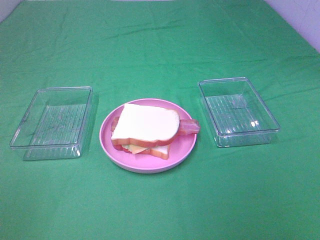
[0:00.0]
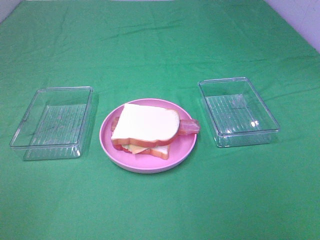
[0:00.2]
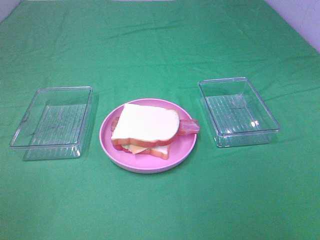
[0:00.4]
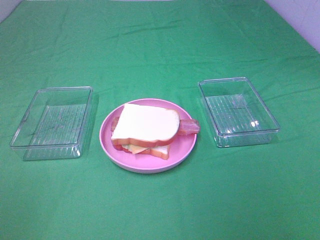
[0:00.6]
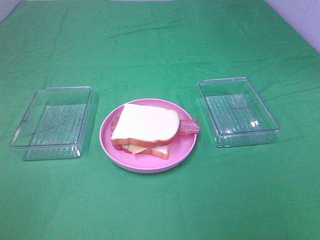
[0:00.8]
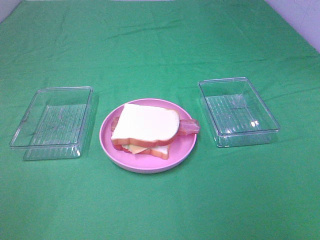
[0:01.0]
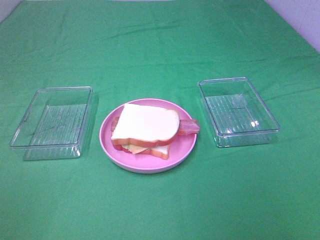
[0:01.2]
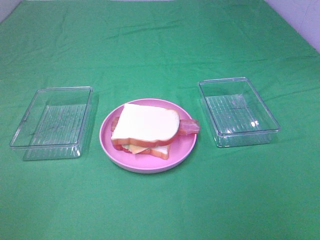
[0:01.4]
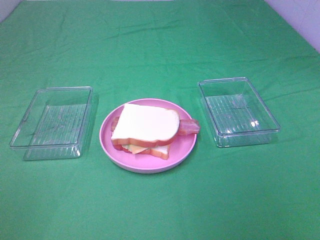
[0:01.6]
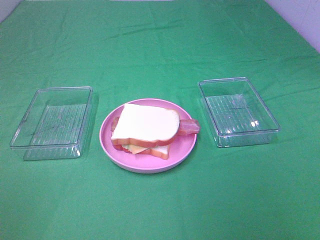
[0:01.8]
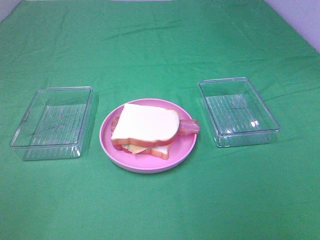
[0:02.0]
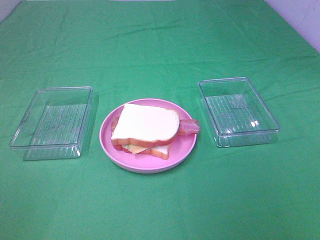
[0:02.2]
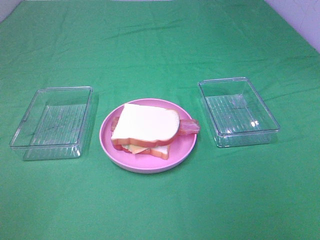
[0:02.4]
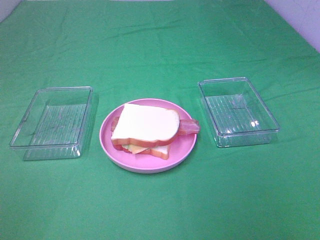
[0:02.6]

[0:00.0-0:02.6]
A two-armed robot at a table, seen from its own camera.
Task of the whole recording: Make sandwiches.
0:01.2 to 0:02.6: Neither gripper changes place.

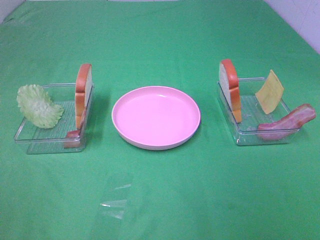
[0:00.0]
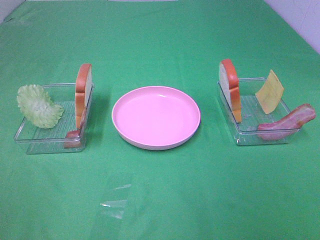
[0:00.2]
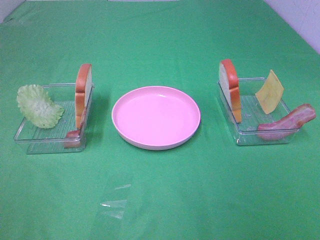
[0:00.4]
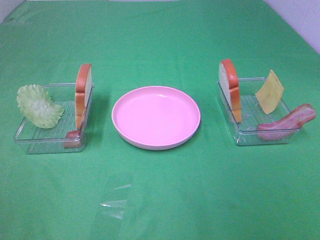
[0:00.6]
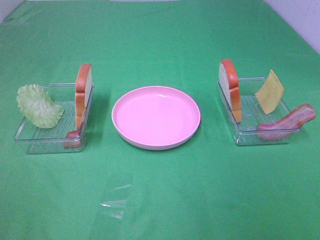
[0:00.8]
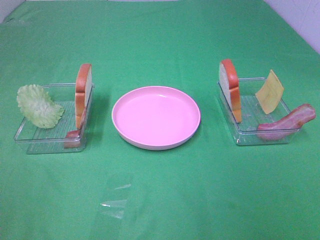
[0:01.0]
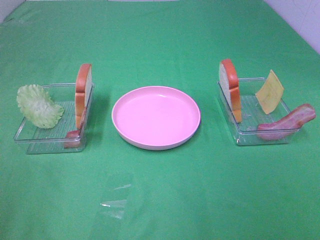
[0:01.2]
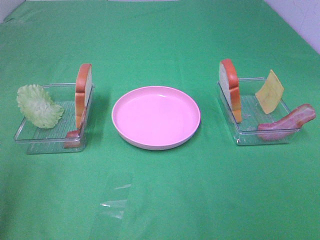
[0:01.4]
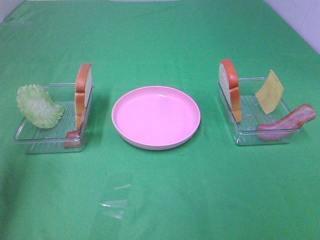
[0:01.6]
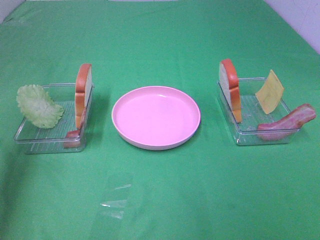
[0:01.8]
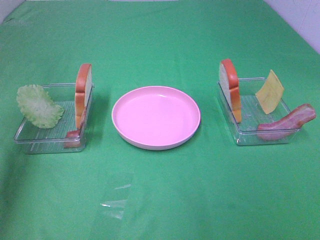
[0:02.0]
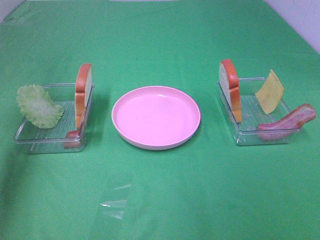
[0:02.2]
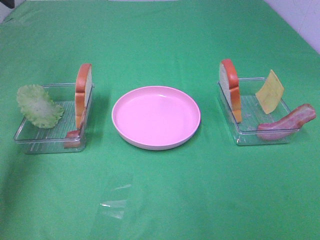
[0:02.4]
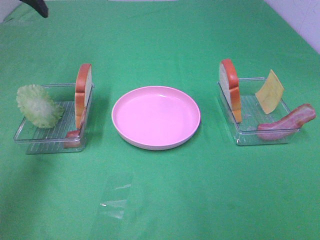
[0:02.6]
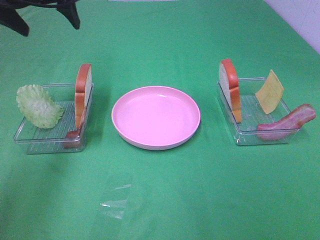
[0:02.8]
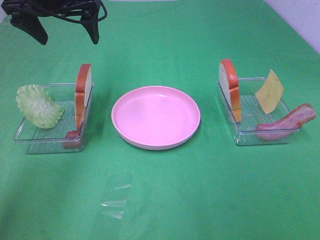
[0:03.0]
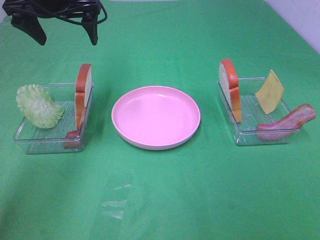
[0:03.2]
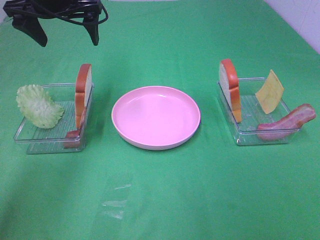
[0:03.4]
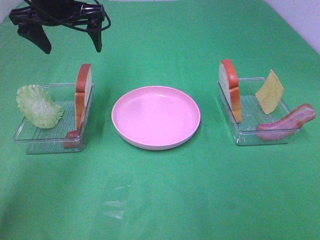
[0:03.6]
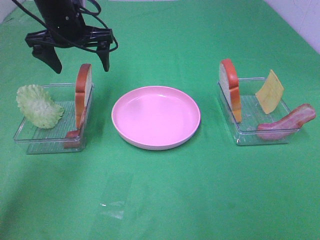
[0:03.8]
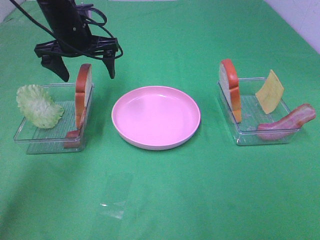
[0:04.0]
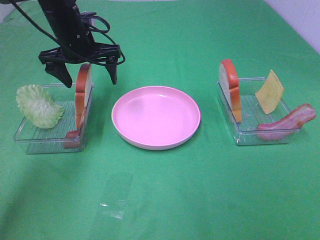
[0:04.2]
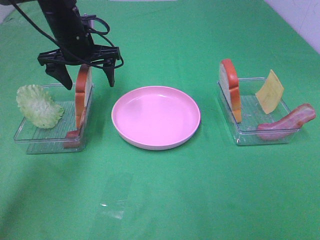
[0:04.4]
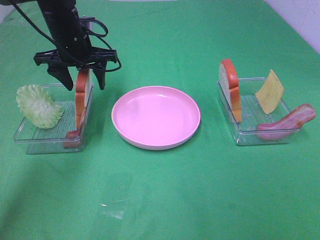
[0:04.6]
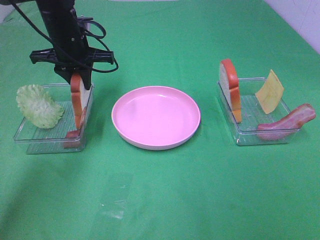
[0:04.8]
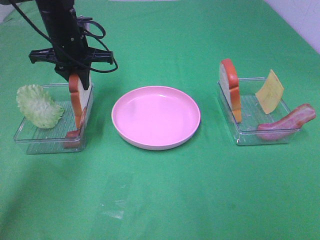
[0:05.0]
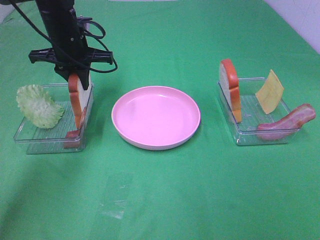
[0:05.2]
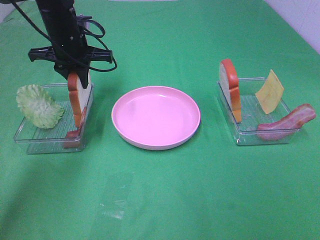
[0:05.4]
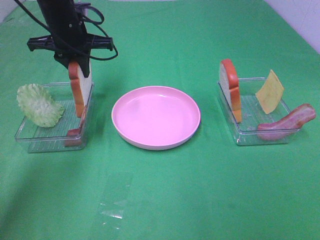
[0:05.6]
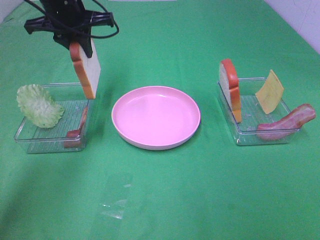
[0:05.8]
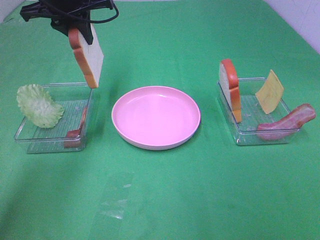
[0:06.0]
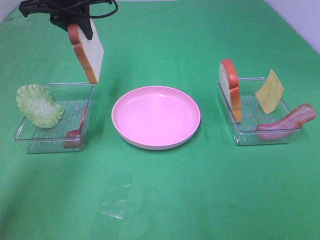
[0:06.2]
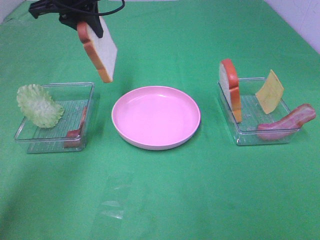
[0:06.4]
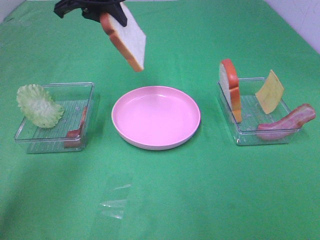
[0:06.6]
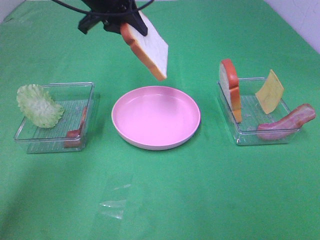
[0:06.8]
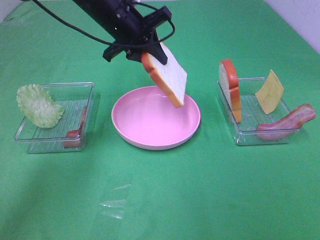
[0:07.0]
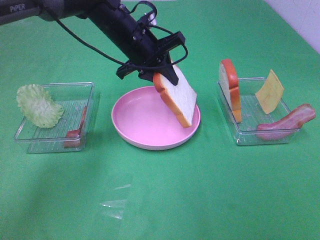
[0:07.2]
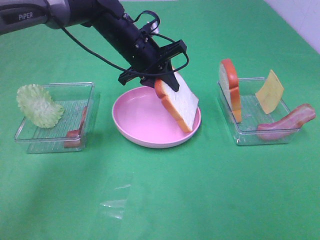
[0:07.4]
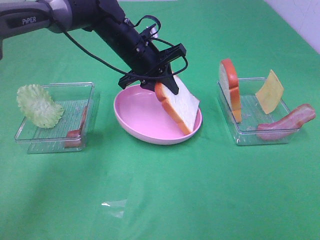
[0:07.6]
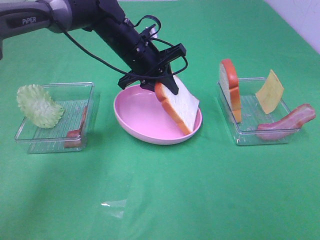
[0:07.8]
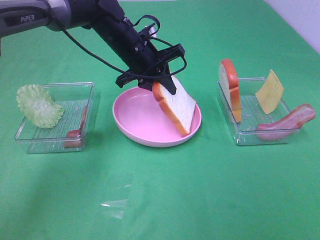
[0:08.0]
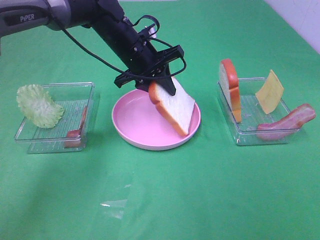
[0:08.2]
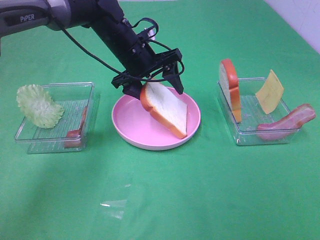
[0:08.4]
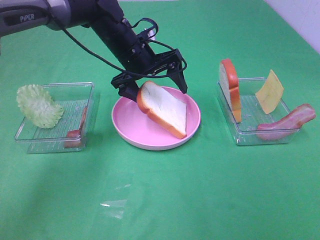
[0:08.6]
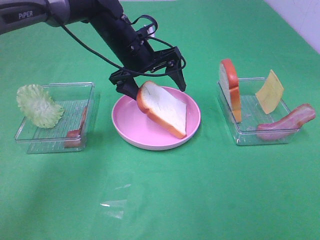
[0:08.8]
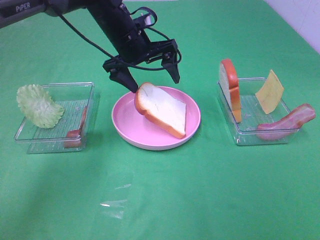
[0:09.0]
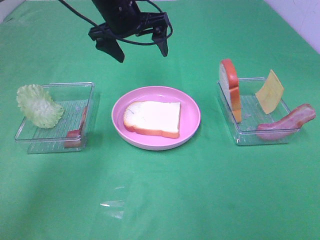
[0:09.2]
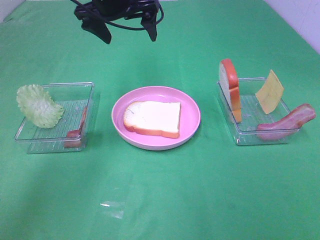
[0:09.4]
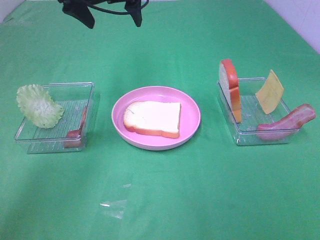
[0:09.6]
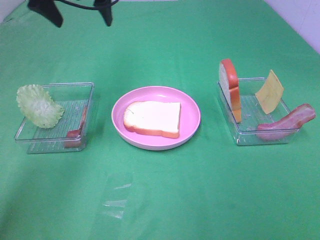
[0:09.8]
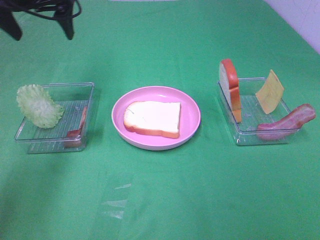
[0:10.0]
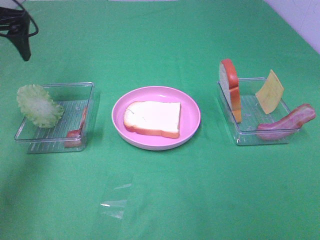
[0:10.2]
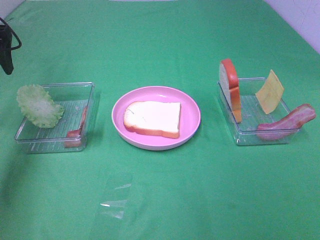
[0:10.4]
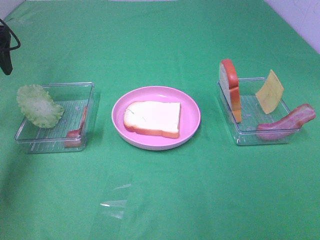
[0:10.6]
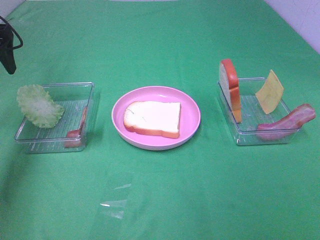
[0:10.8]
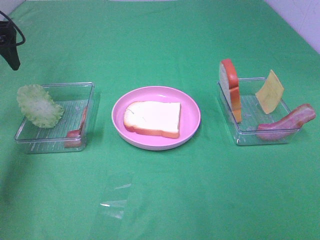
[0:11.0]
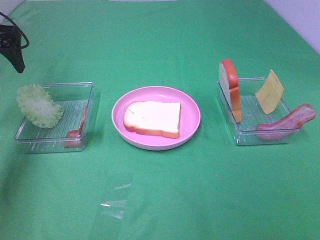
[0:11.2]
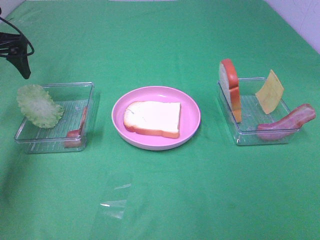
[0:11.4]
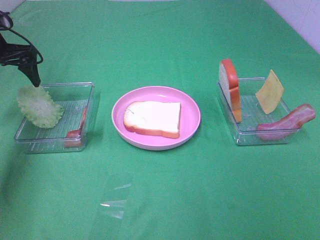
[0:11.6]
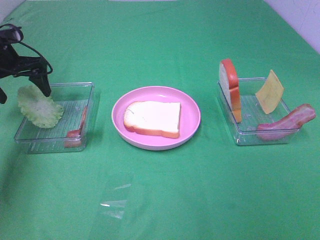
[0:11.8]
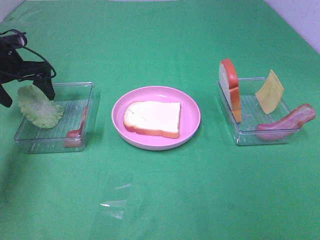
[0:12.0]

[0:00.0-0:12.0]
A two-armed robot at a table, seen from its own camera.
Task of the whole recording: Make sandwiches.
Step, 0:00.0 to 0:05.0: Left hand:grab the bread slice.
Step, 0:05.2 to 0:09.2: Left hand:place the bread slice on the plate.
0:00.0 to 0:01.6: The left gripper goes roughly 20 cm forward.
0:01.6 to 0:03.0: The left gripper travels forward and to the right by approximately 30 cm.
0:03.0 to 0:04.4: The left gripper shifts roughly 10 cm downward.
0:04.4 to 0:06.0: The left gripper shifts roughly 10 cm upward, and closes up.
0:06.0 to 0:07.6: The left gripper shifts some 15 cm downward and to the right.
0:07.6 to 0:09.0: The left gripper opens its fingers.
0:09.0 to 0:10.4: The left gripper travels to the left by some 25 cm.
0:10.4 to 0:12.0: The left gripper shifts about 10 cm downward.

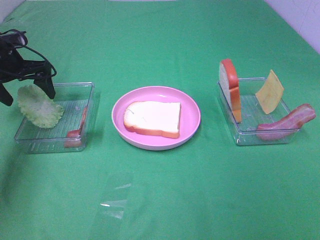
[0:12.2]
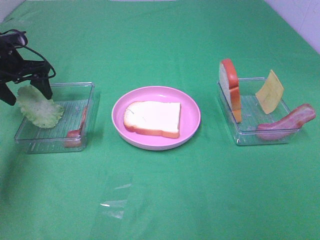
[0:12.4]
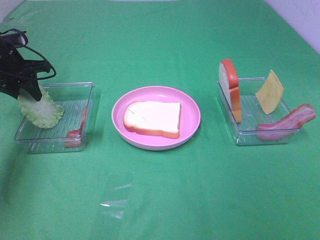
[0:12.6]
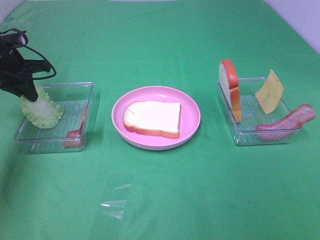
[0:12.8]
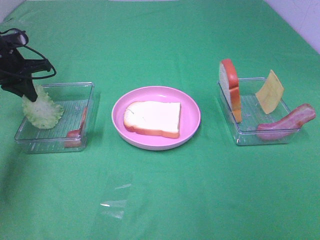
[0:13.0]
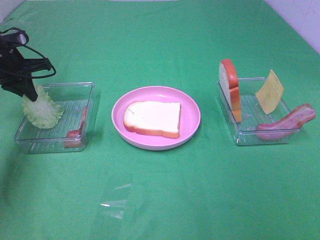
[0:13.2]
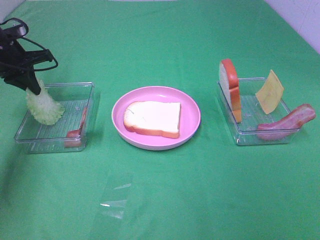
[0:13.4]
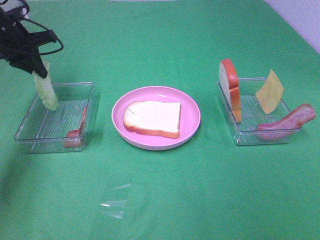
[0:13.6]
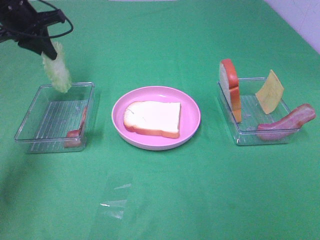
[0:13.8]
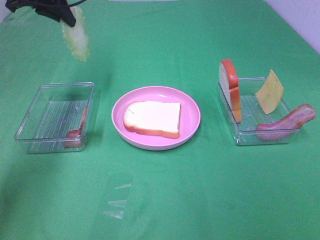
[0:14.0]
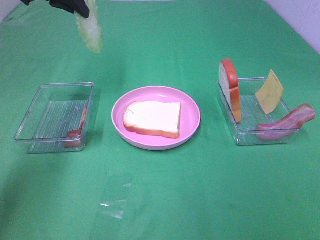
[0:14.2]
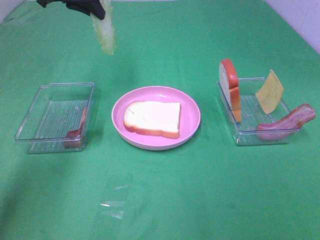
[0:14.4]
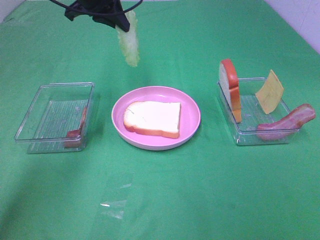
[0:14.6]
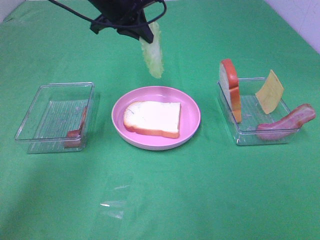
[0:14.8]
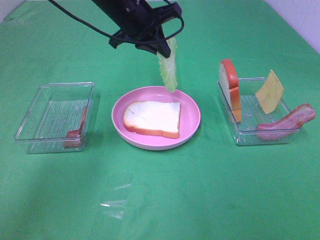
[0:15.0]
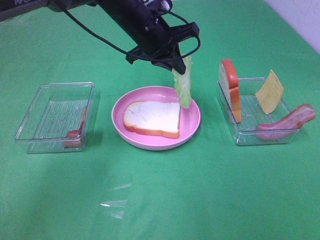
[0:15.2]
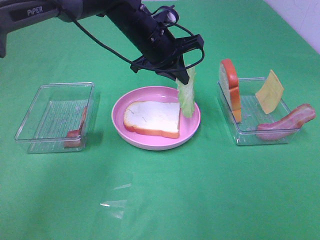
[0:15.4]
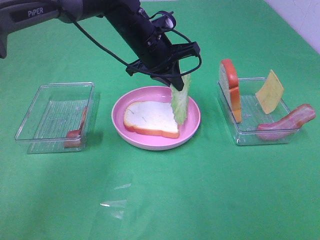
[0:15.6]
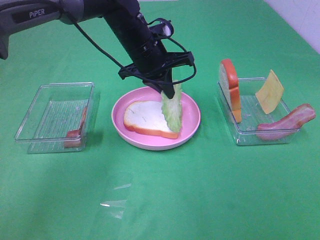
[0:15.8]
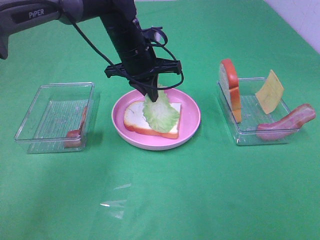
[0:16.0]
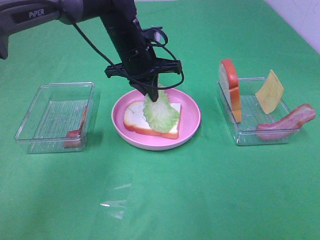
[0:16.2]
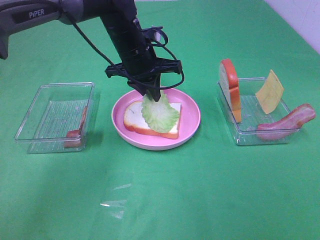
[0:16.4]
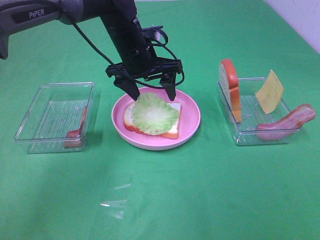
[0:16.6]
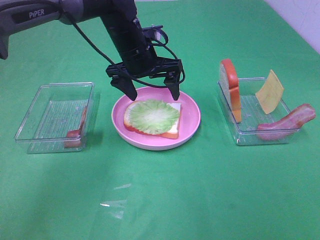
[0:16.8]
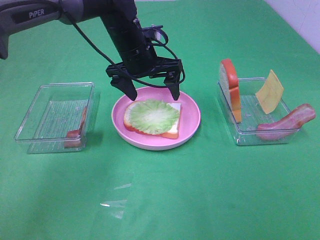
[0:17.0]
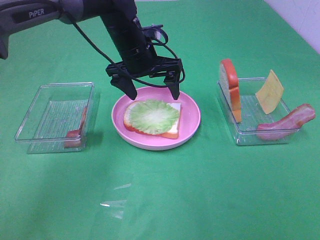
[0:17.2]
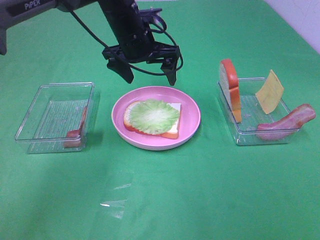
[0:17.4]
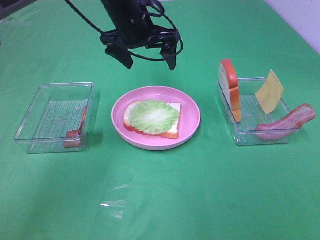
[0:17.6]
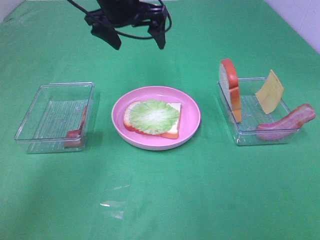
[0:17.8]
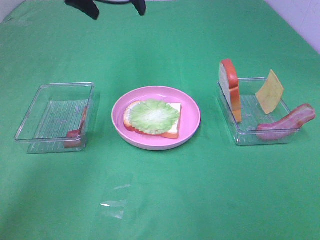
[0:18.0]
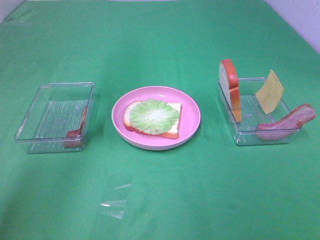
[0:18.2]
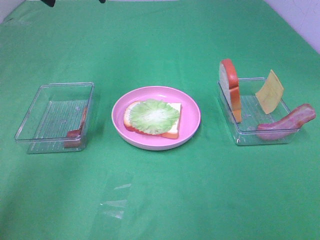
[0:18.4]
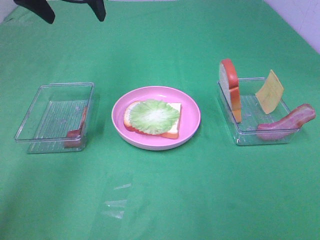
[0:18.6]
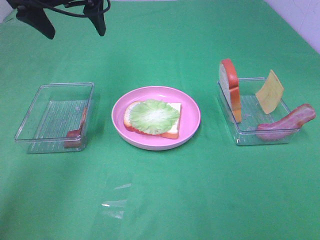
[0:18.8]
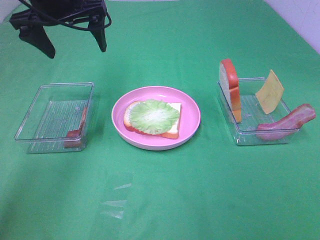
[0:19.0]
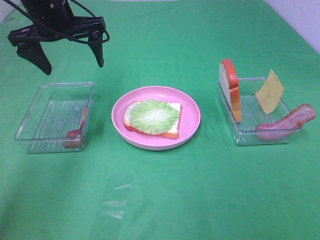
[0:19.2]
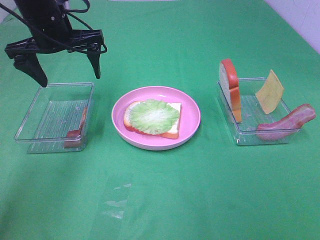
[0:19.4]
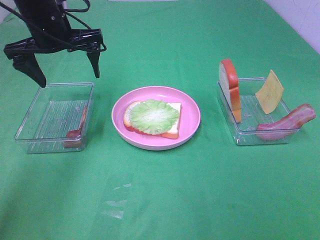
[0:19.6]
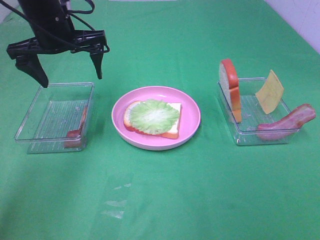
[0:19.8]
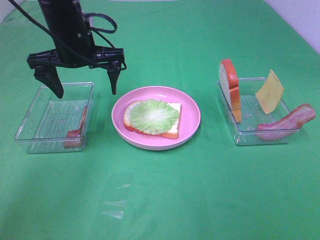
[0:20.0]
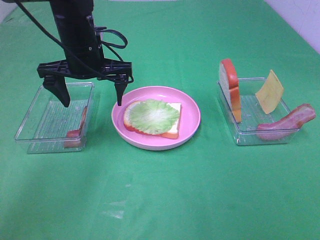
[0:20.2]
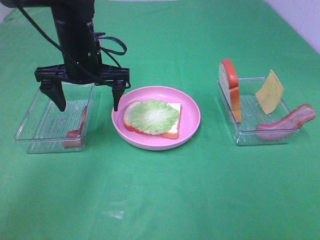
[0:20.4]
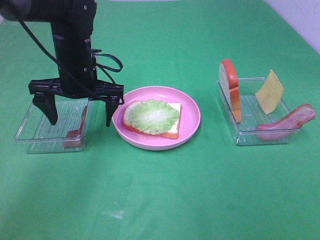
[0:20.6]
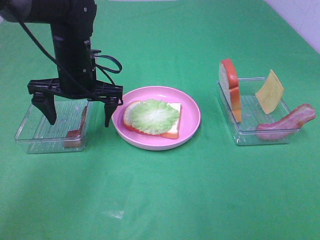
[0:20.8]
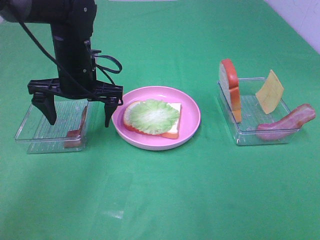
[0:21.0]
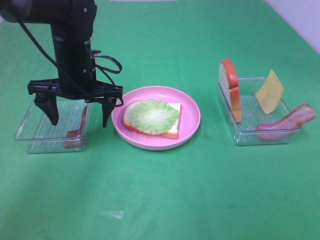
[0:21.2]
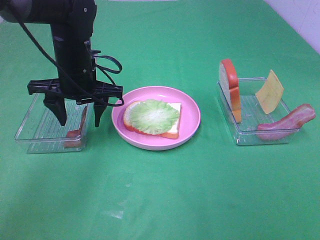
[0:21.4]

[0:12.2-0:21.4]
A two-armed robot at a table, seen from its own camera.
Task of the whole recording: Make sandwiches.
Step, 0:13.6 to 0:16.8: Left hand:place the lettuce slice on the bread slice.
0:12.2 to 0:13.8: The left gripper shifts some 10 cm upward and to the right, and closes its fingers.
0:13.8 to 0:15.2: The left gripper moves to the right, roughly 25 cm.
0:15.2 to 0:16.8: The left gripper opens its fingers.
0:16.8 to 0:18.4: The left gripper heads upward and to the left, covering approximately 20 cm.
0:18.4 to 0:19.8: The left gripper is displaced downward by some 10 cm.
0:19.8 to 0:21.4: The left gripper moves downward, about 10 cm, and closes.
